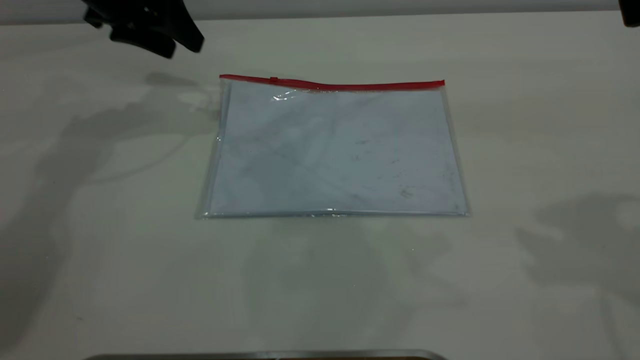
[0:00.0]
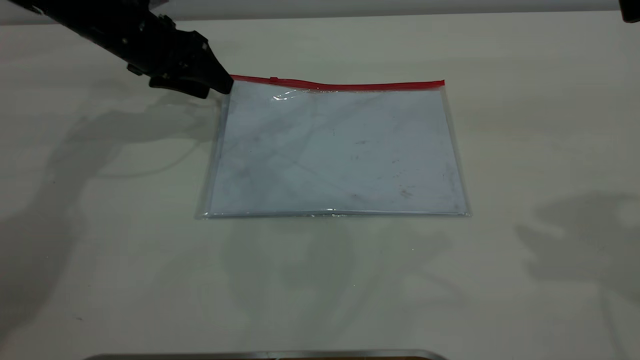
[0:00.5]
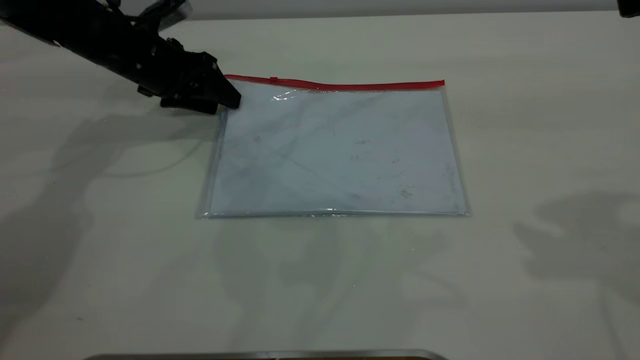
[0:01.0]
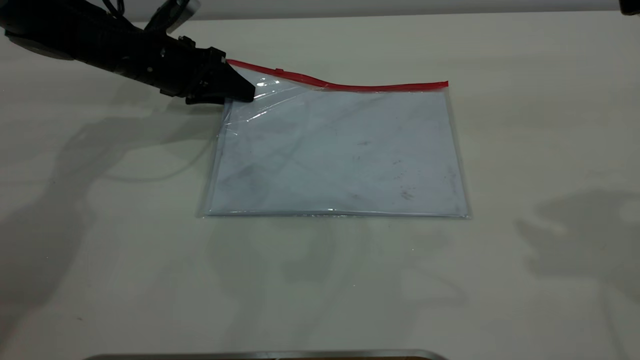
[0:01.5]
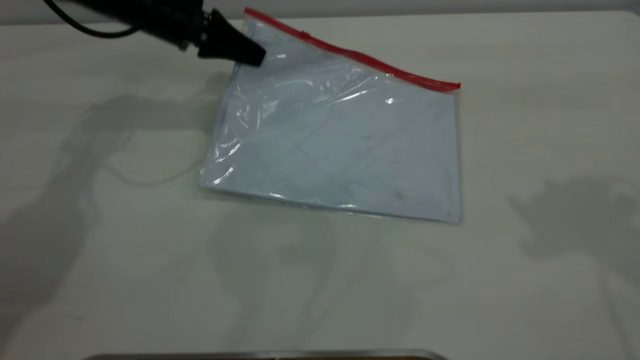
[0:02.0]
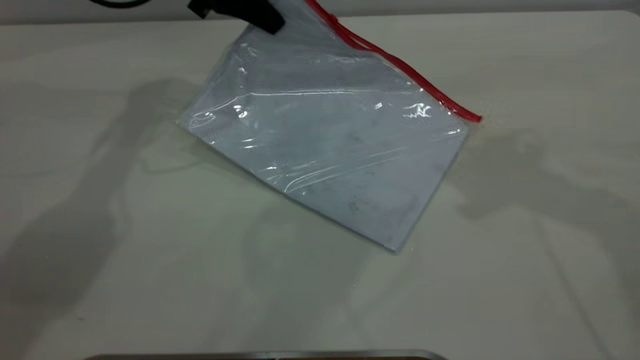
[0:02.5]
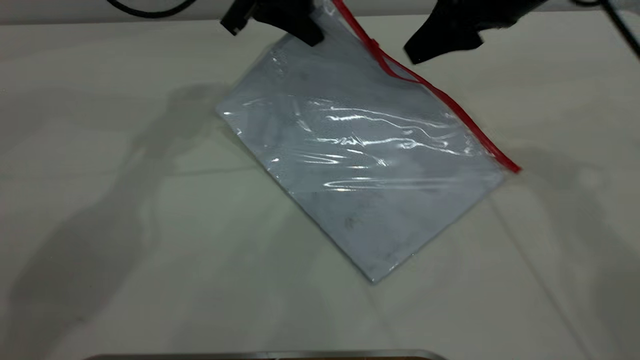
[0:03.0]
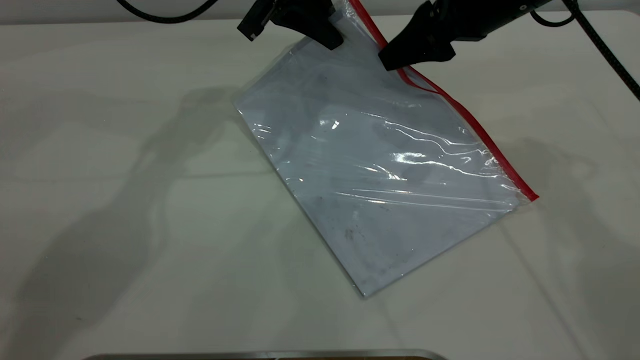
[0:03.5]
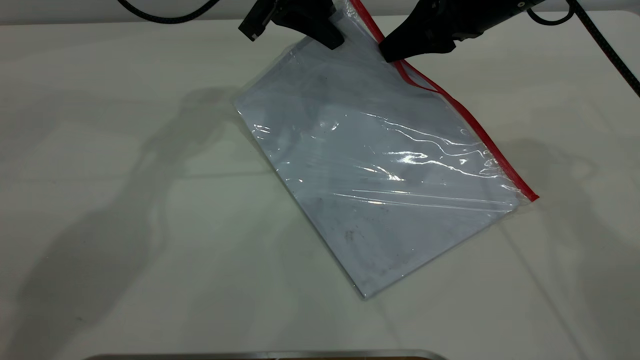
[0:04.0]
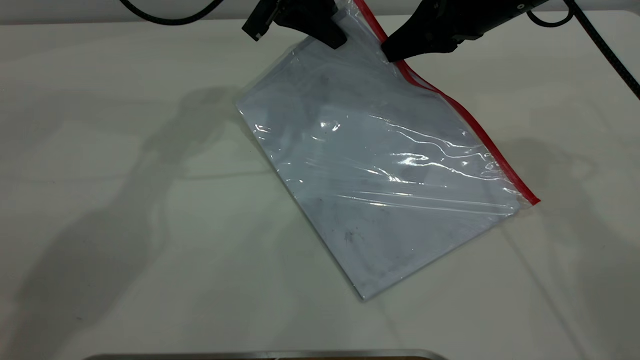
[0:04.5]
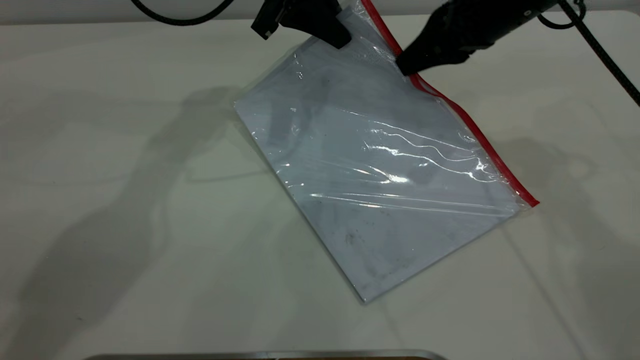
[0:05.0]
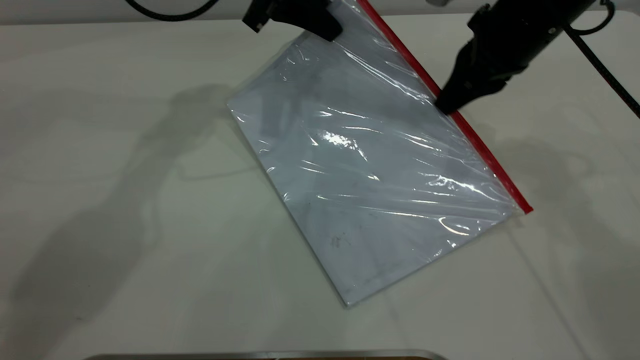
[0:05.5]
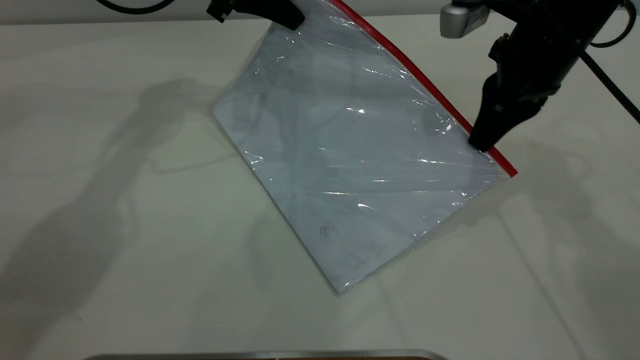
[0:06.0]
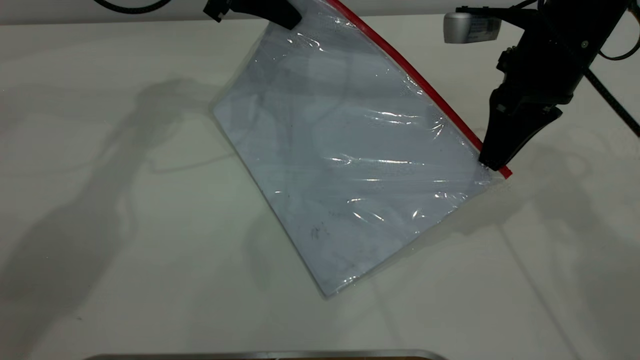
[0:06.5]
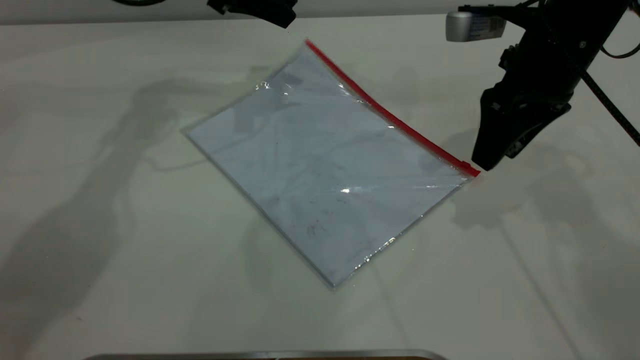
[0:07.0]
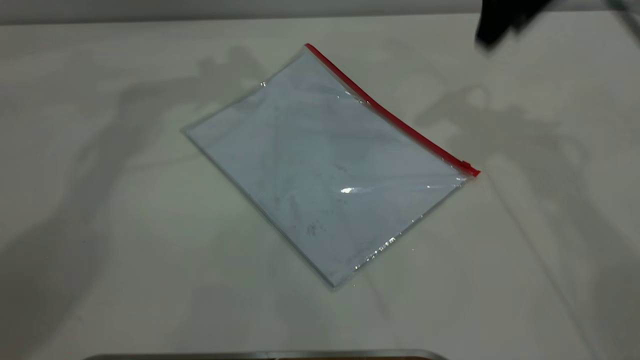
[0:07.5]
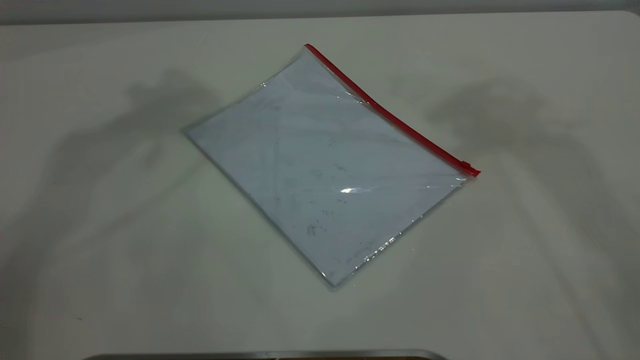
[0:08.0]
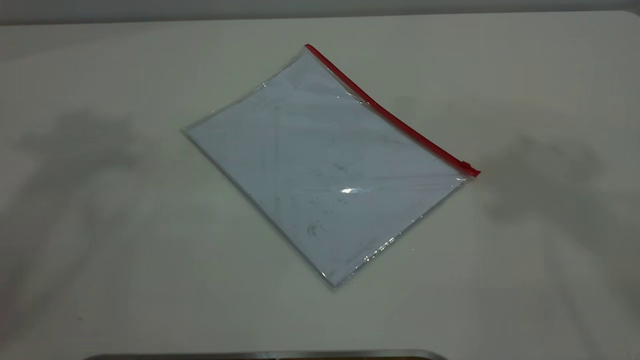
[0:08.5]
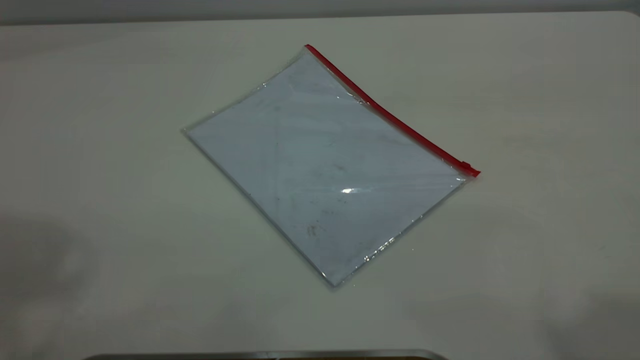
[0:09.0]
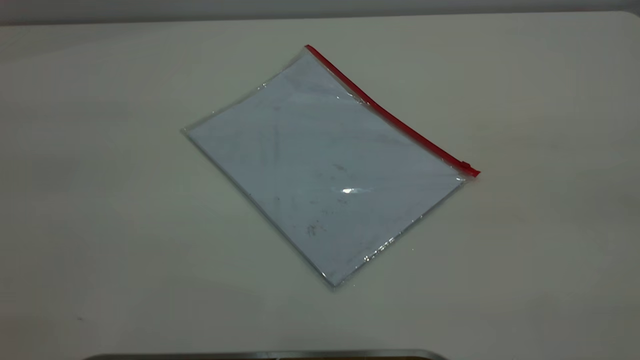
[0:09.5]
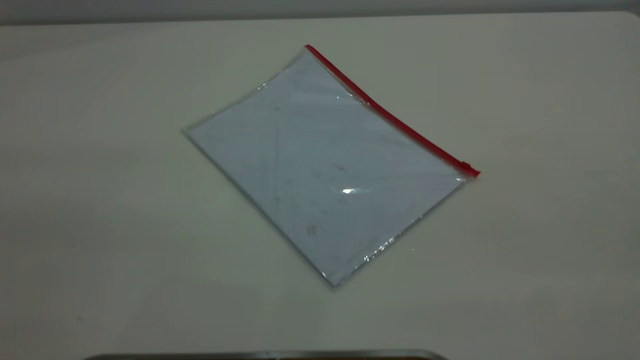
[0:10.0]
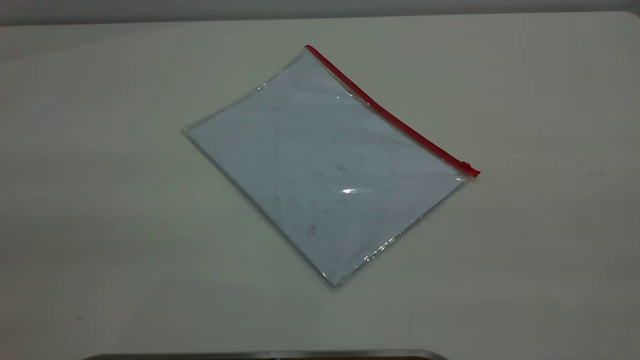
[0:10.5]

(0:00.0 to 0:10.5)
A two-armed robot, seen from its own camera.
Step, 0:02.5 - 0:06.5: Pulling up the zipper on the transparent plastic bag with the right gripper to close it.
0:00.0 - 0:02.0: The left gripper closes up.
0:02.0 - 0:04.0: The left gripper shifts some 15 cm to the right and upward. The right gripper is displaced downward, forward and to the left by approximately 25 cm, and closes.
0:04.0 - 0:06.5: The left gripper moves to the left, some 5 cm; the right gripper moves about 5 cm.
0:06.5 - 0:08.5: The right gripper heads upward, covering some 40 cm, and opens its fingers; the left gripper shifts approximately 50 cm upward and backward, and opens its fingers.

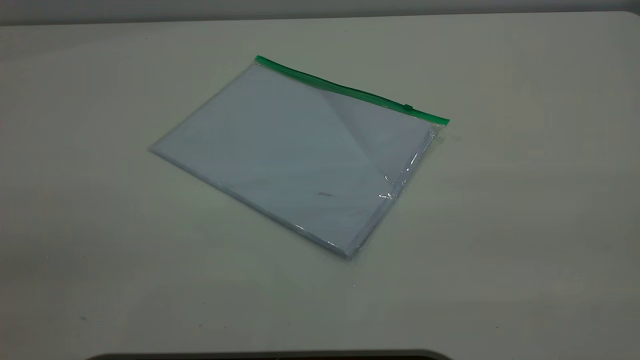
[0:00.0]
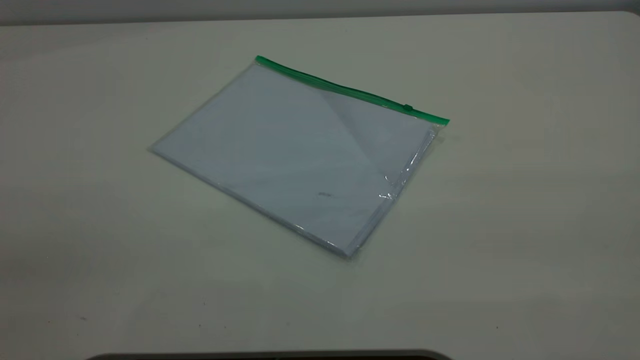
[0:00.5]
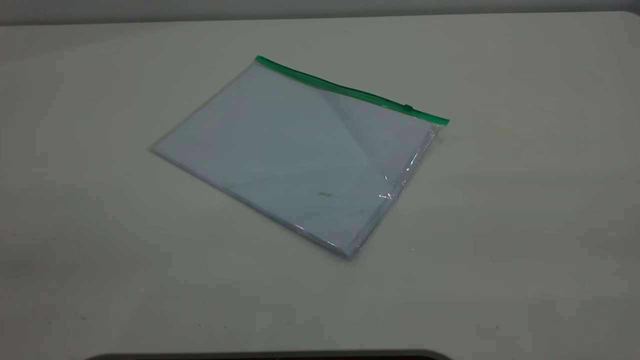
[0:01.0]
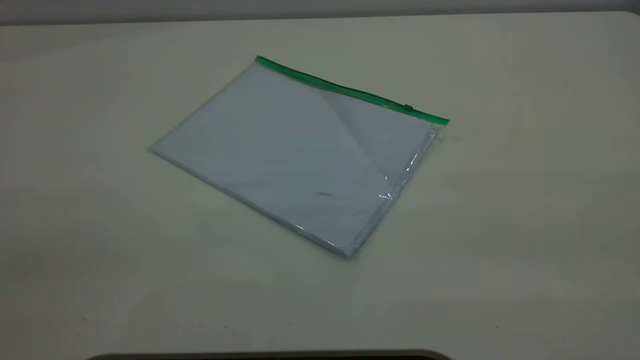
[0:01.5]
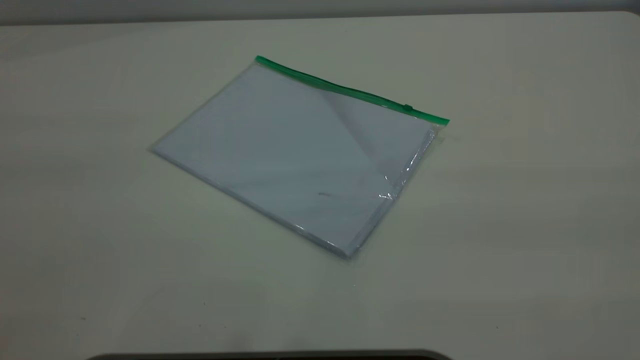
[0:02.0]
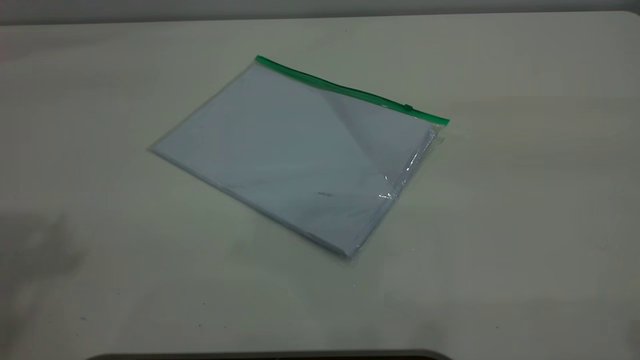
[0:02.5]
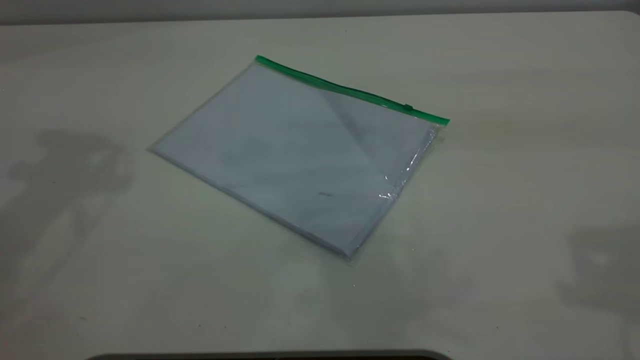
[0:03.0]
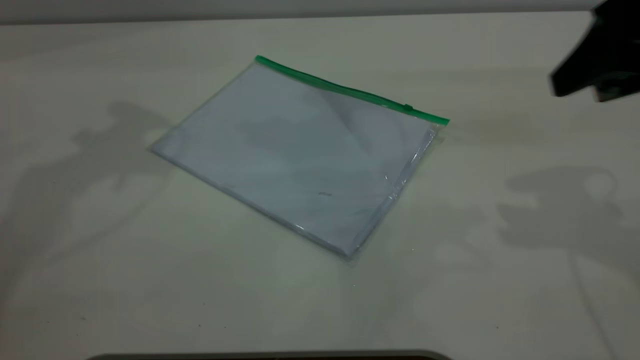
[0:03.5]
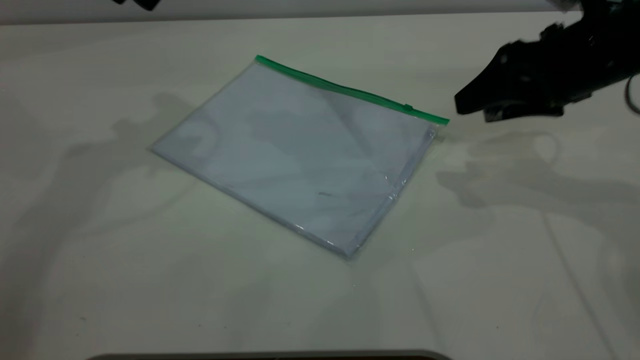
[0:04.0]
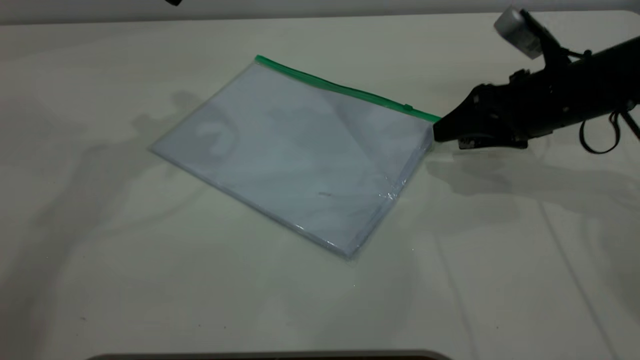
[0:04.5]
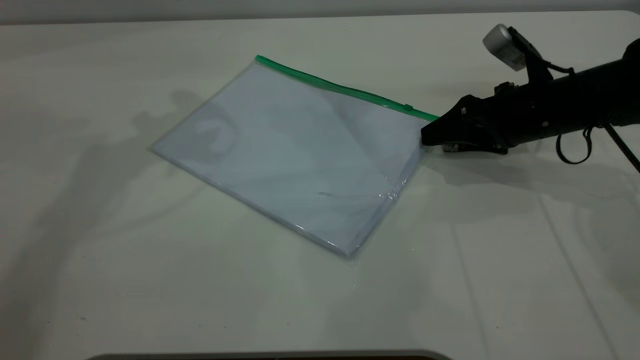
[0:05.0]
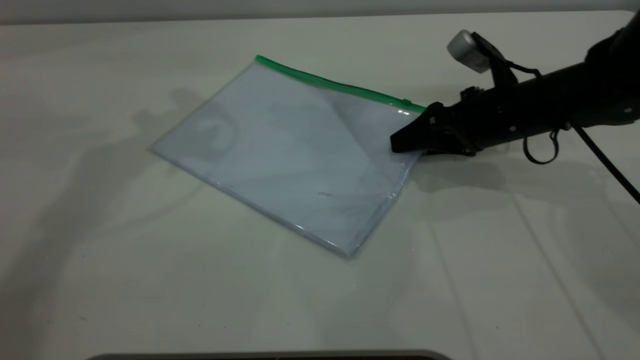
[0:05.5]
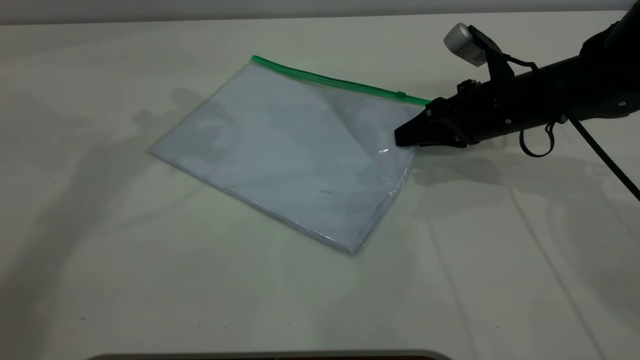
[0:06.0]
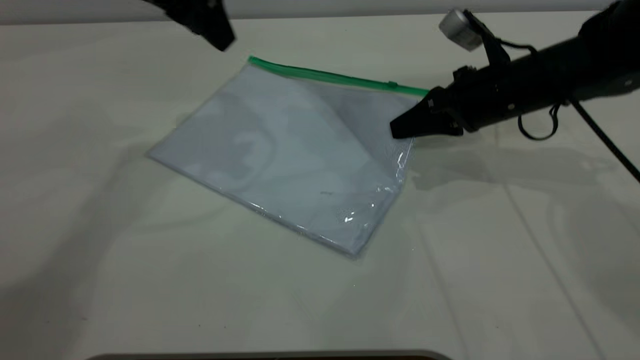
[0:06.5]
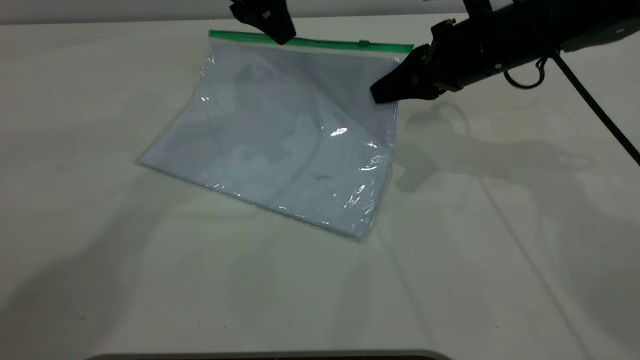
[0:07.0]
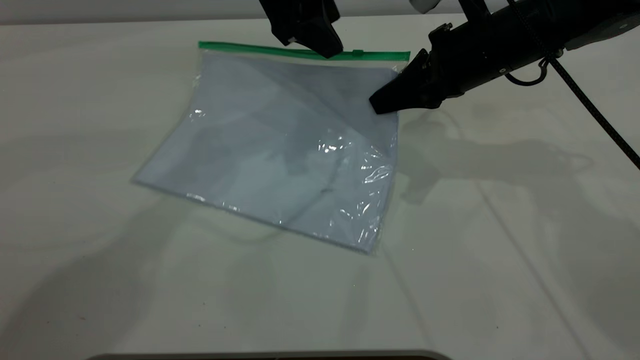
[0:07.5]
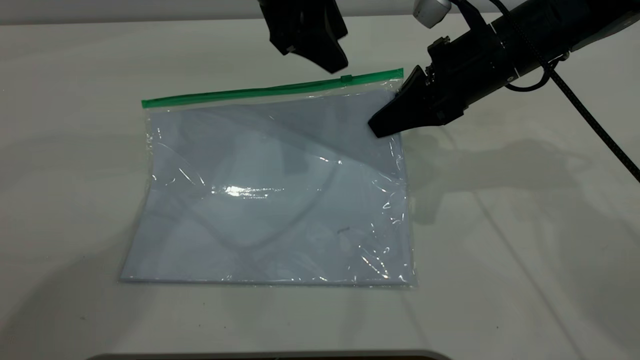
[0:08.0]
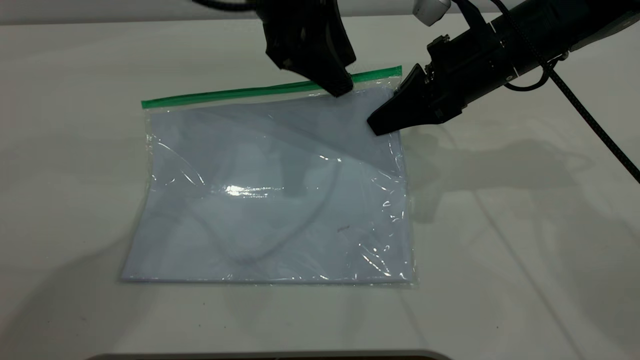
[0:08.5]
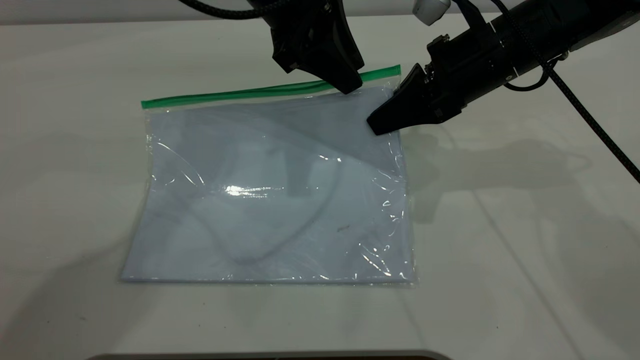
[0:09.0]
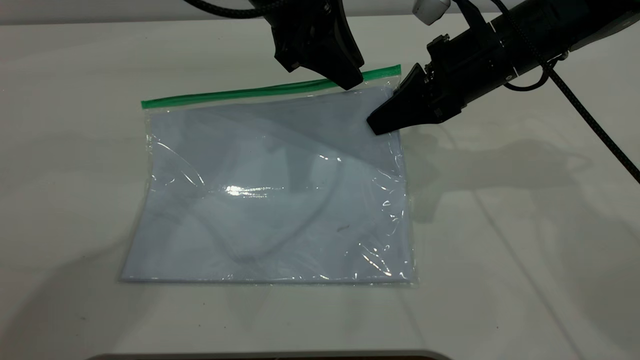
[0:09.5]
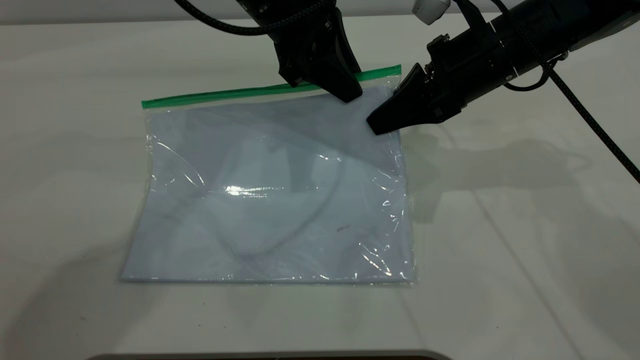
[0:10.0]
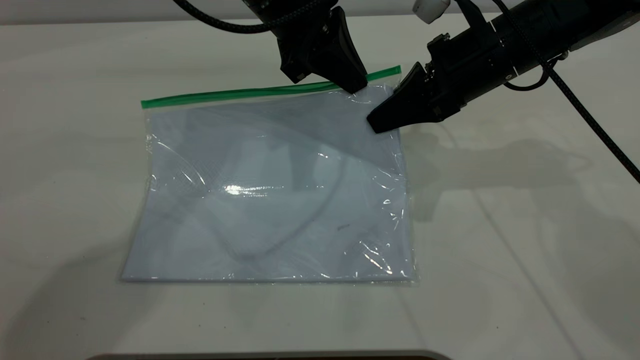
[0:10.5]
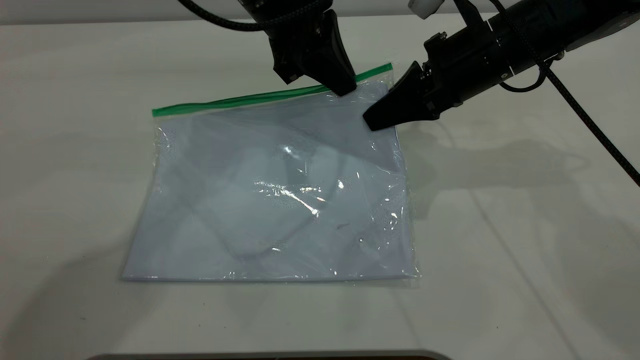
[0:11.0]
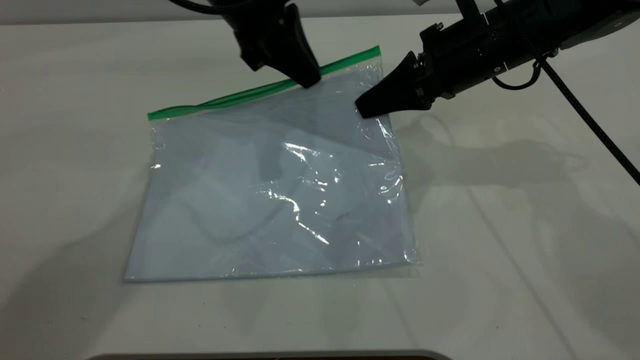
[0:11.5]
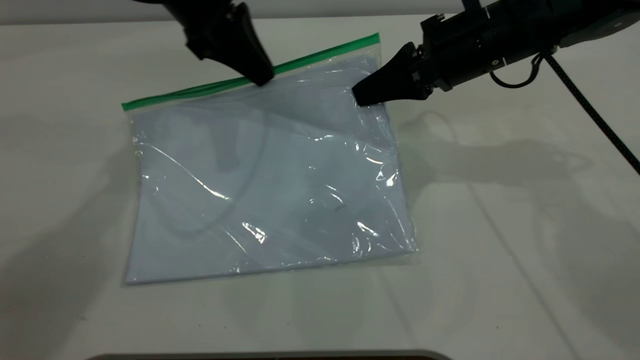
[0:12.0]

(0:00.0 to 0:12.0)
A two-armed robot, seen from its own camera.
Step, 0:00.0 - 0:06.0: Pick up the transparent plastic bag with the right gripper.
0:02.0 - 0:04.0: The right gripper is displaced forward and downward by approximately 40 cm.
0:04.0 - 0:06.0: The right gripper travels downward by approximately 10 cm, and closes.
0:06.0 - 0:08.0: The left gripper goes roughly 15 cm to the right and downward, while the right gripper travels upward by approximately 5 cm.
0:08.0 - 0:10.0: The left gripper closes.
0:10.0 - 0:12.0: The left gripper shifts about 10 cm to the left, and closes its fingers.
